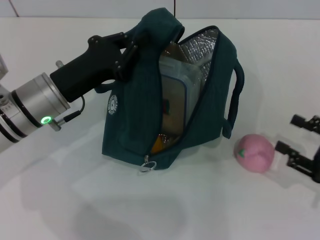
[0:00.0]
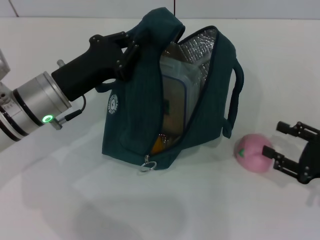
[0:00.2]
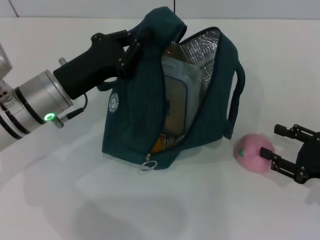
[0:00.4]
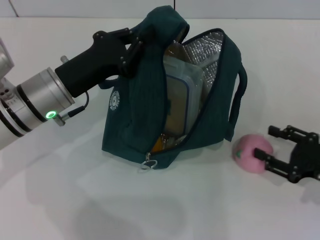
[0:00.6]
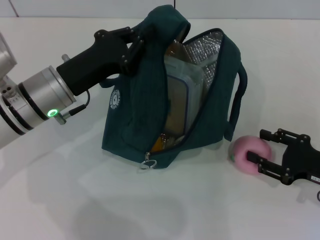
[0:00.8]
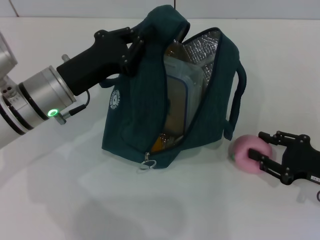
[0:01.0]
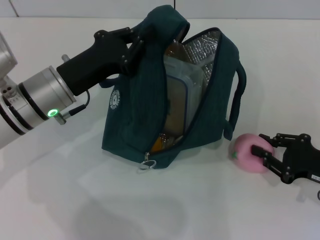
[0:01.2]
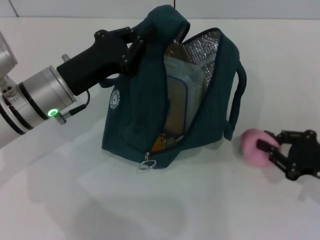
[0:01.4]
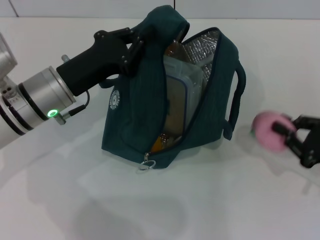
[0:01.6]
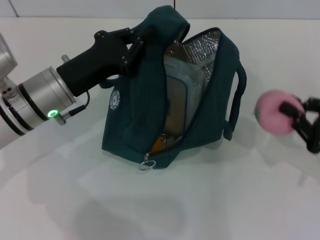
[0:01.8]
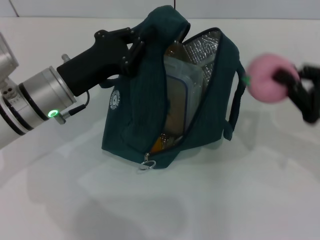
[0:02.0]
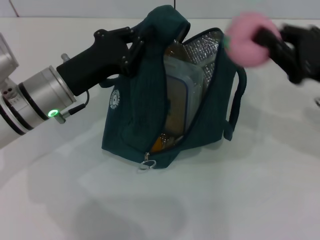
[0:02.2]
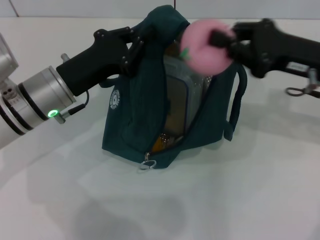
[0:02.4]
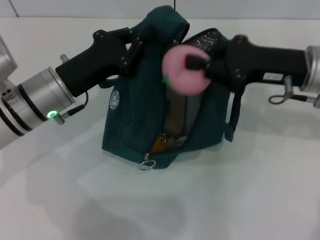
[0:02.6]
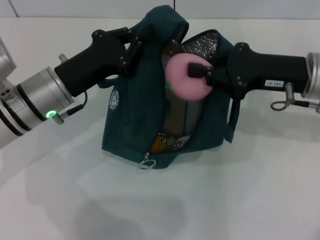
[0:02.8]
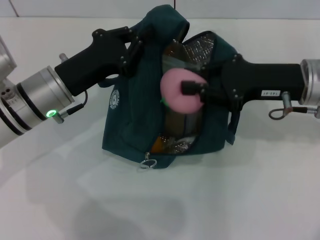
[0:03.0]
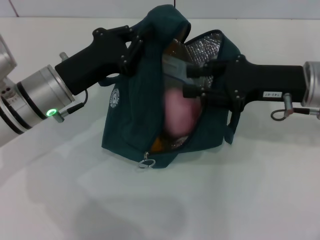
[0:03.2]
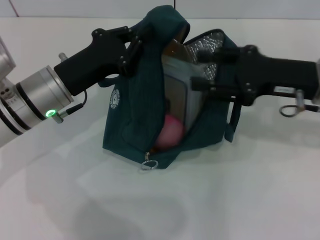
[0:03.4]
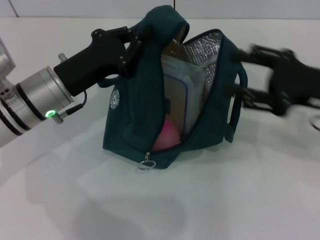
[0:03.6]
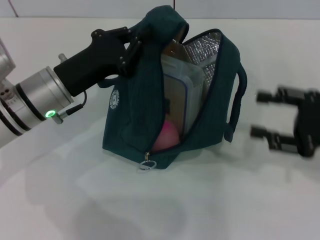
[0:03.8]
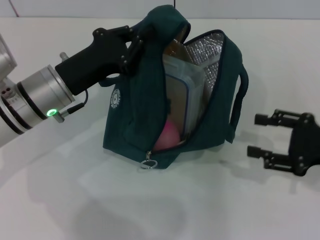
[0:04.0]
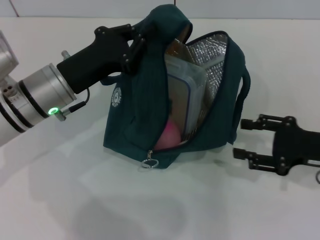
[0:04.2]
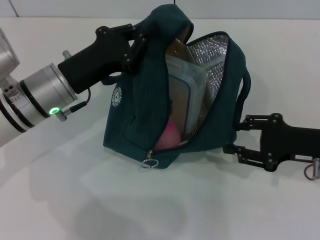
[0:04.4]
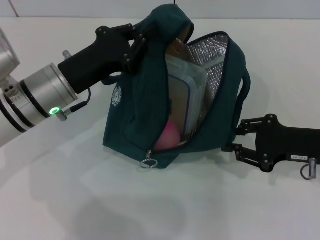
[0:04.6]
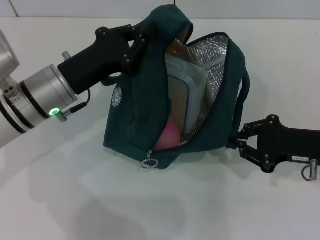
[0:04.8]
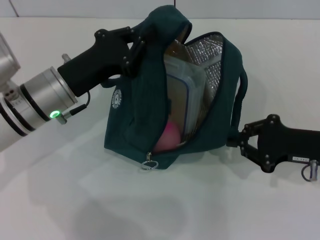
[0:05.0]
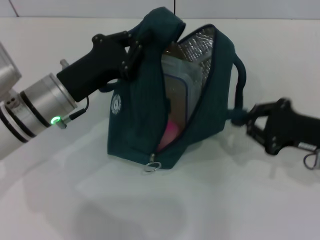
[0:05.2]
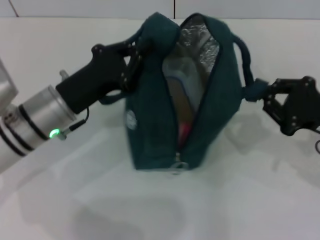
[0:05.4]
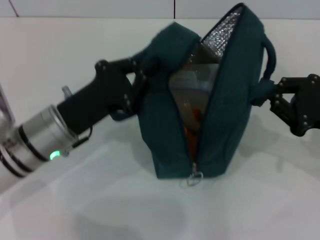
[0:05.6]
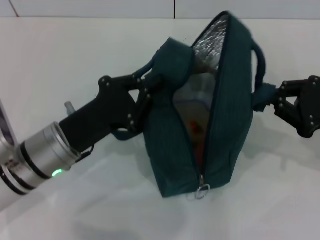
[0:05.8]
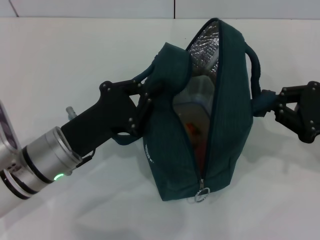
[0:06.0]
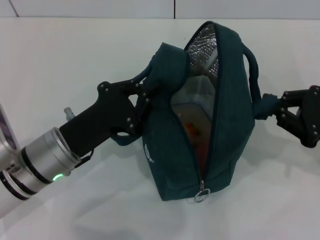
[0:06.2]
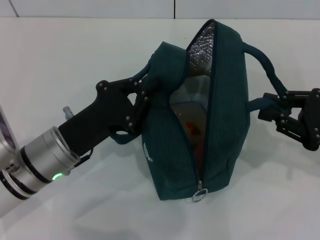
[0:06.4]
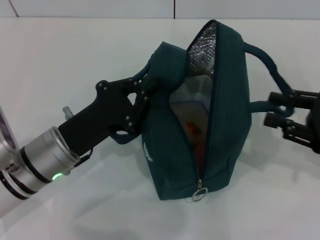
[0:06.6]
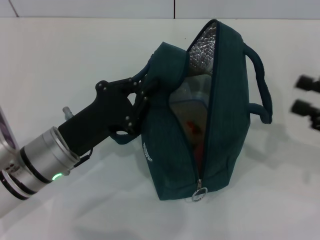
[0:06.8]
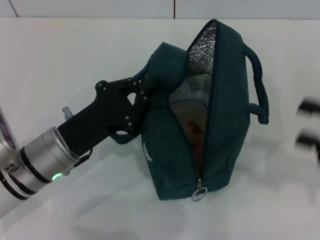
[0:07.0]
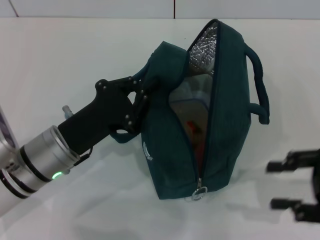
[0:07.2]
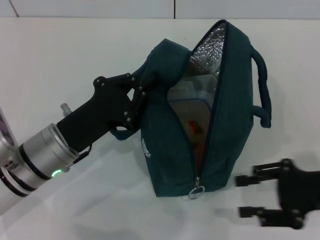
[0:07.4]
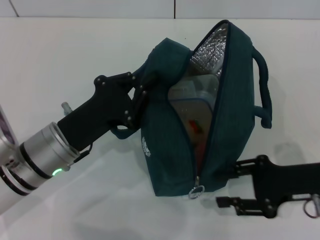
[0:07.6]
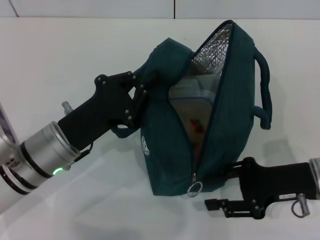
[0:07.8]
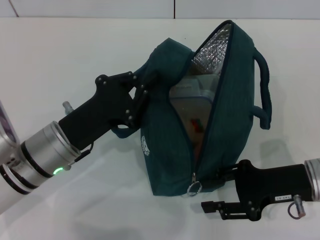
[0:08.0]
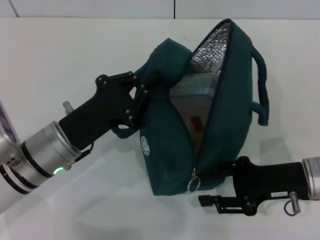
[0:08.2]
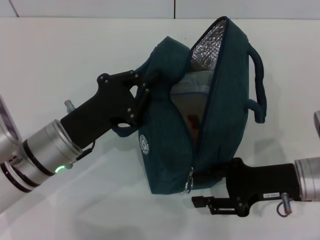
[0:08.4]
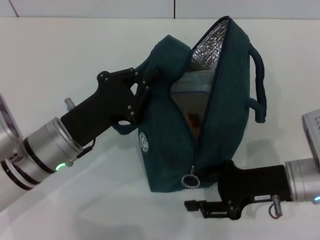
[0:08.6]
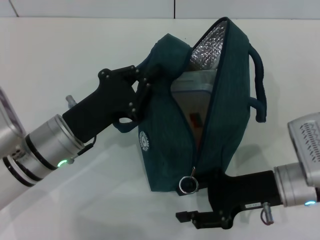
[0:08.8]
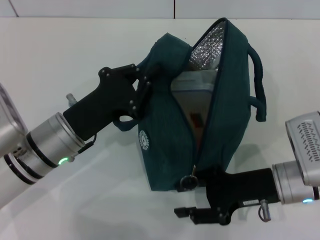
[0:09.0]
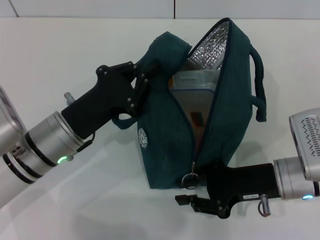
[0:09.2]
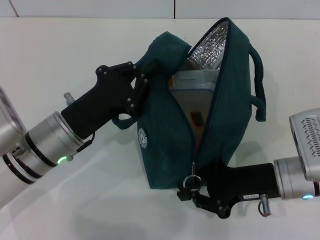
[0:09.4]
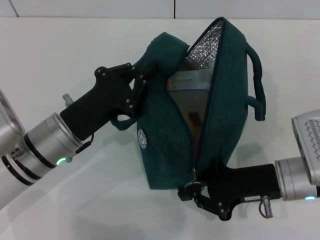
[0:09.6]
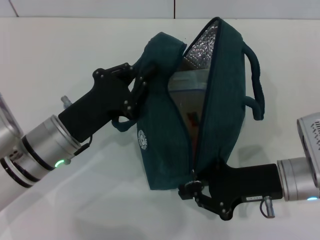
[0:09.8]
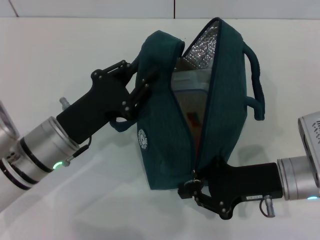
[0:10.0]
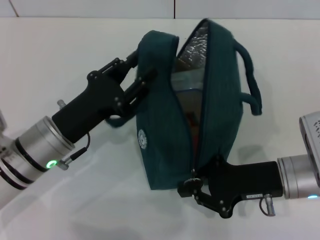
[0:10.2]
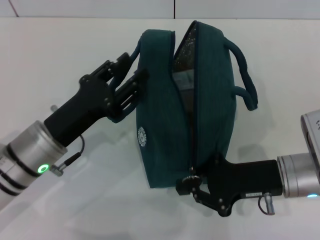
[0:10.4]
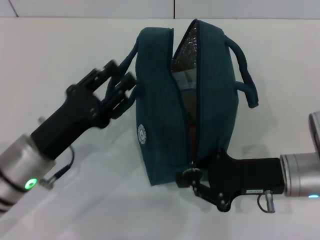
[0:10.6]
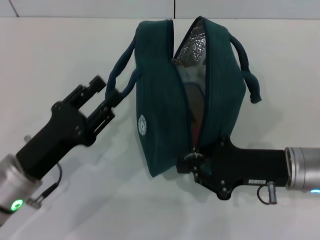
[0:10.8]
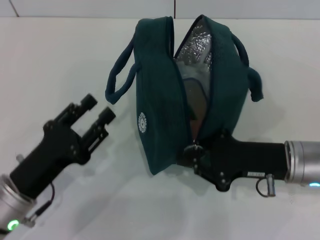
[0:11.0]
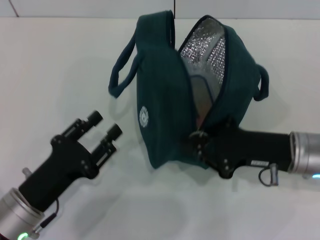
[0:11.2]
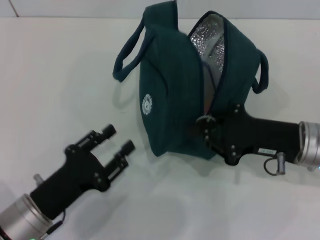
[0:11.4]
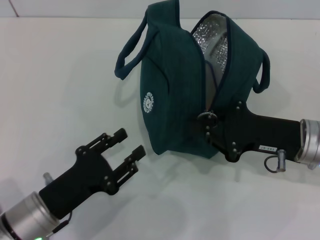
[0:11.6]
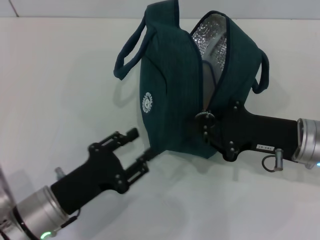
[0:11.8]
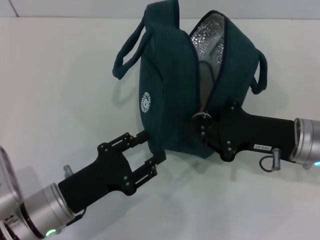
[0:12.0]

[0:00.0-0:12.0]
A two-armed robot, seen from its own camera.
Step, 0:03.6 to 0:06.6: Hold the lunch bag with your right hand.
Step, 0:06.8 to 0:10.2: Hold the lunch bag with your left hand.
0:00.0 to 0:01.6: The right gripper closes.
0:01.6 to 0:03.0: The right gripper is displaced to the left, upward and forward by roughly 20 cm.
0:03.0 to 0:04.4: The right gripper shifts approximately 10 cm downward, to the right and backward, and opens.
0:04.4 to 0:06.0: The right gripper shifts by about 5 cm, and closes up. Meanwhile the left gripper moves backward, roughly 5 cm.
0:06.0 to 0:07.6: The right gripper moves downward, roughly 5 cm, and opens its fingers.
0:07.6 to 0:09.0: The right gripper moves to the left, about 5 cm.
0:09.0 to 0:10.4: The right gripper closes up. Meanwhile the left gripper opens its fingers.
0:10.4 to 0:12.0: The left gripper goes about 5 cm backward.

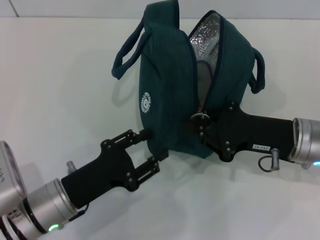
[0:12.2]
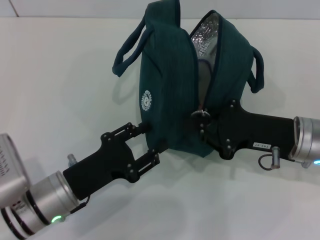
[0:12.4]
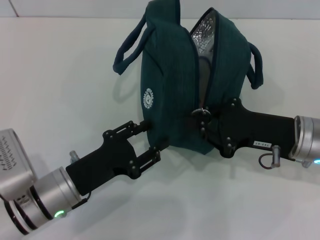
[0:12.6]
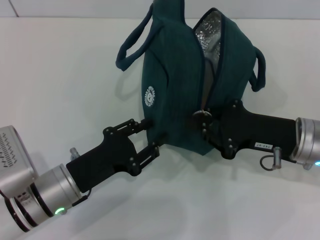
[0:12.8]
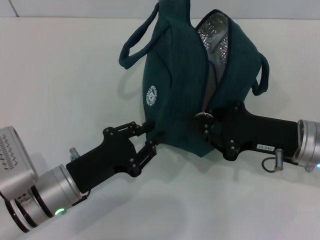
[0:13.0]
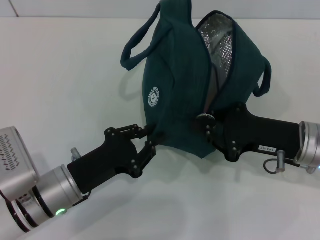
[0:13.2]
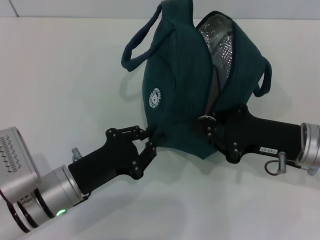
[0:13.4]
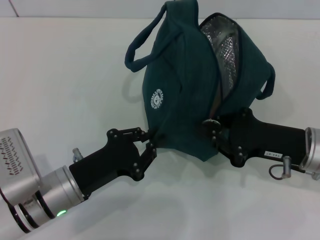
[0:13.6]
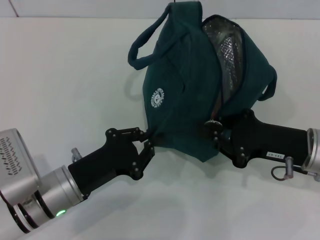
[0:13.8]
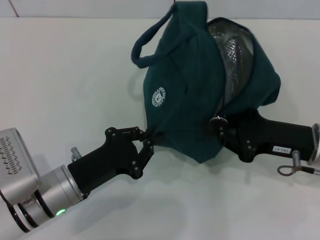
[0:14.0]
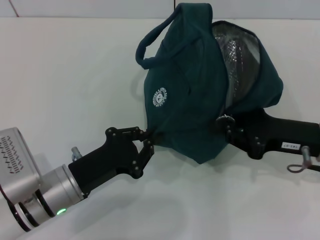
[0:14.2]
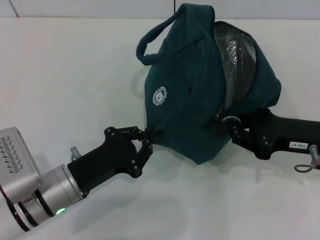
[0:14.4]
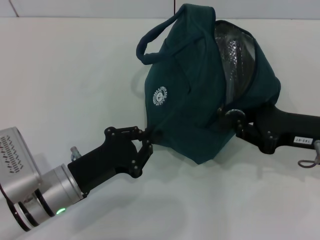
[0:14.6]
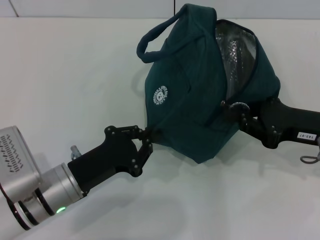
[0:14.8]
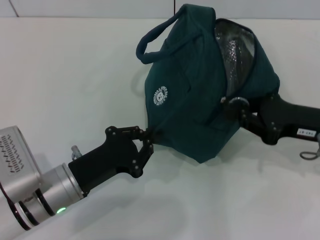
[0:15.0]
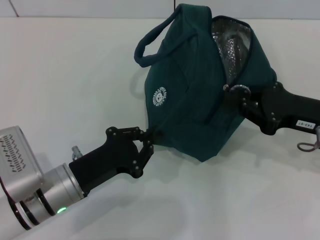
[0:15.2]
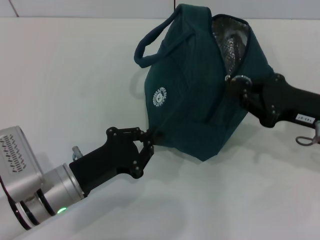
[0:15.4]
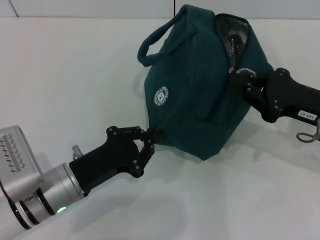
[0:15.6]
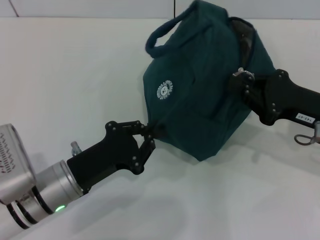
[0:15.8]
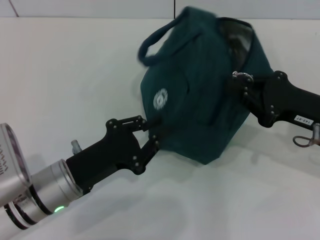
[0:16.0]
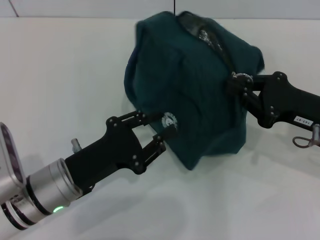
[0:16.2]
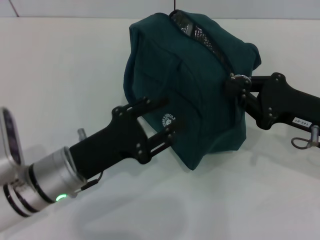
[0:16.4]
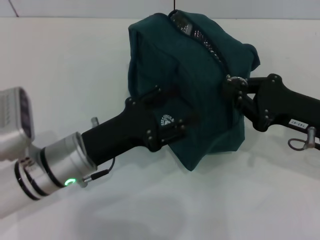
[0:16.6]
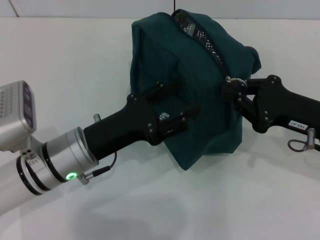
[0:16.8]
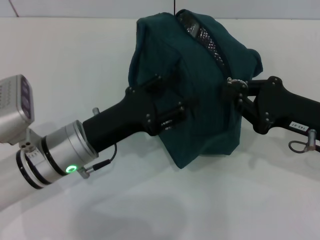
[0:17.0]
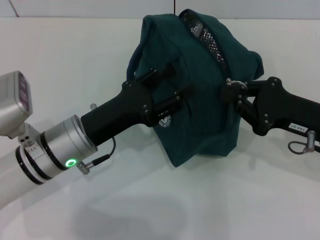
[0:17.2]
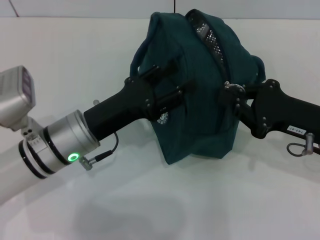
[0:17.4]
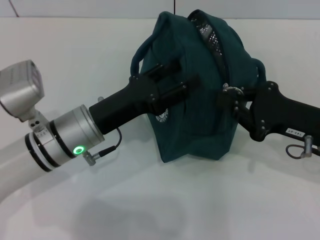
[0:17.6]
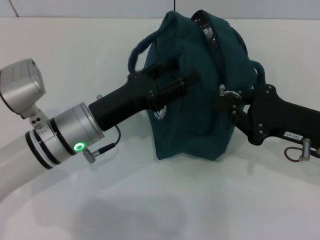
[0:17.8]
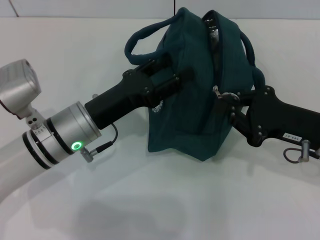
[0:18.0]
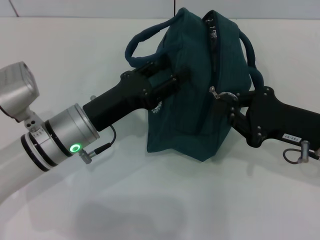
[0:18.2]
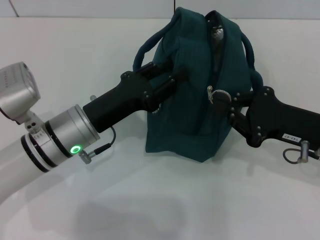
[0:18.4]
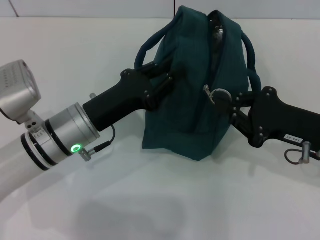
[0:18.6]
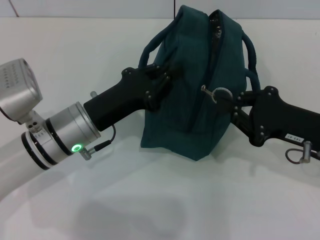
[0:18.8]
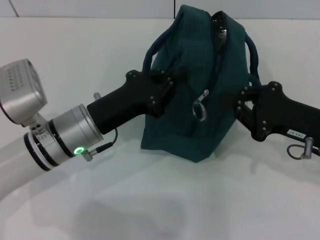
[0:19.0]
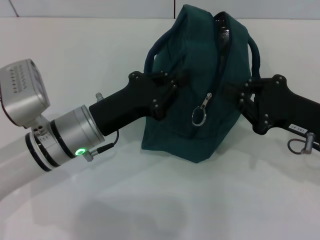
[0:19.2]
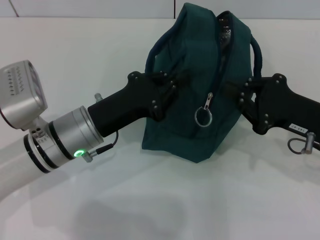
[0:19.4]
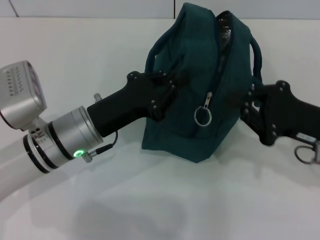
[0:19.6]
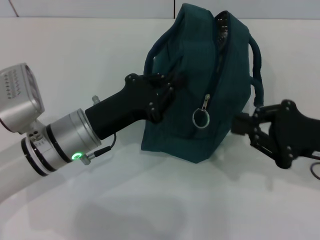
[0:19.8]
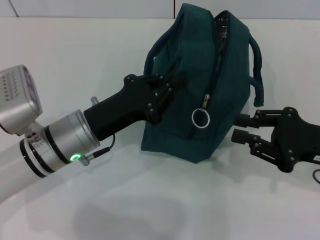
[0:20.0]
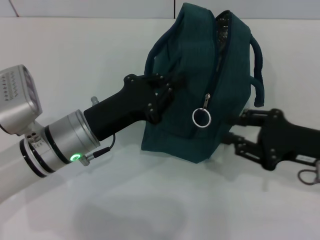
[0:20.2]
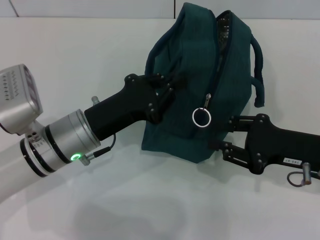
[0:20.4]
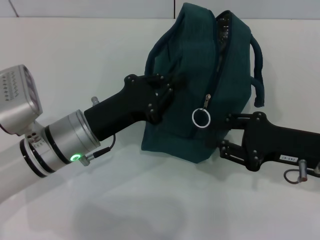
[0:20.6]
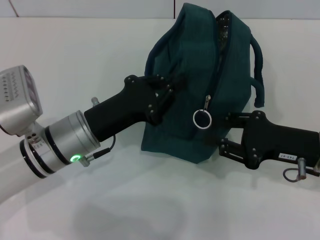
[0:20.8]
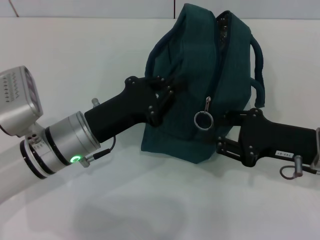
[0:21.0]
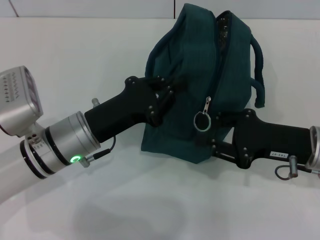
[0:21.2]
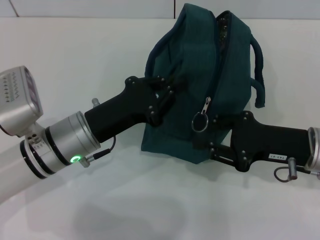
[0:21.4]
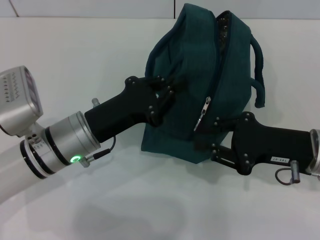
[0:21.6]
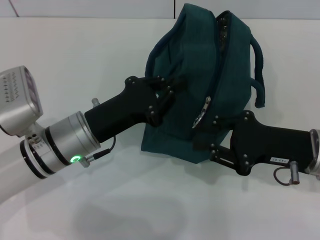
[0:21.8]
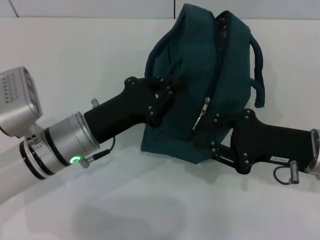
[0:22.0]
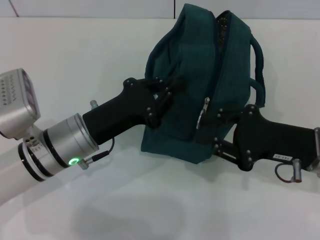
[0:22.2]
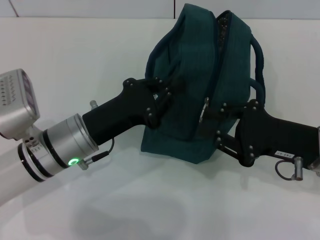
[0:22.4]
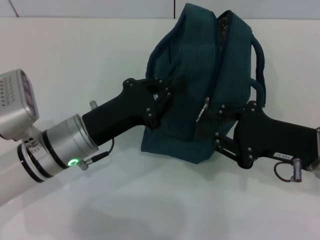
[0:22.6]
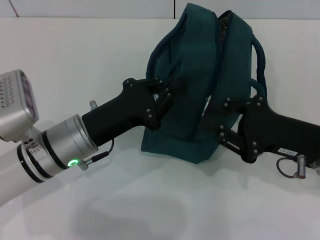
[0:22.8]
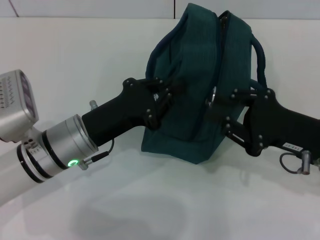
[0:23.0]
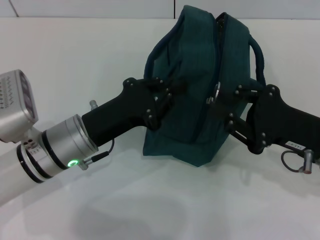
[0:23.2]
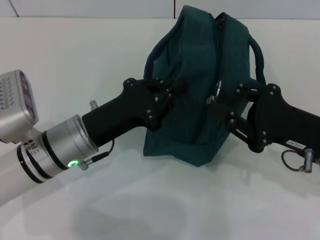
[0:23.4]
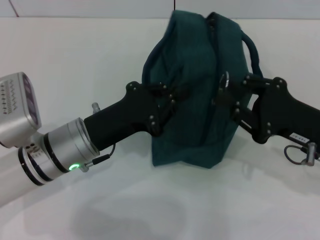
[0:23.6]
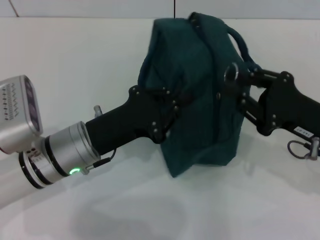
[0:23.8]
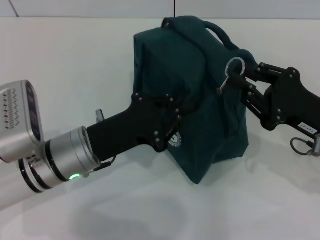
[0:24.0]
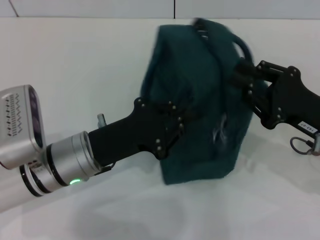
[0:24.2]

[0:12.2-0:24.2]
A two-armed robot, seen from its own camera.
0:12.2 to 0:13.8: The left gripper closes its fingers.
0:13.8 to 0:15.2: There are only small adjustments of the grippers.
0:15.2 to 0:16.6: The left gripper shifts by some 5 cm, and opens its fingers.
0:18.2 to 0:19.8: The left gripper closes.
0:19.8 to 0:21.2: The right gripper opens its fingers.
0:21.2 to 0:22.6: The grippers make only small movements.
